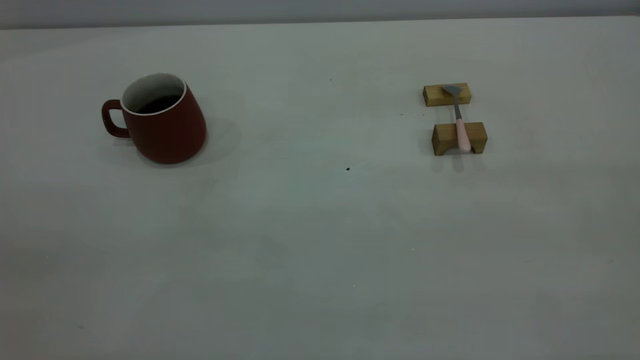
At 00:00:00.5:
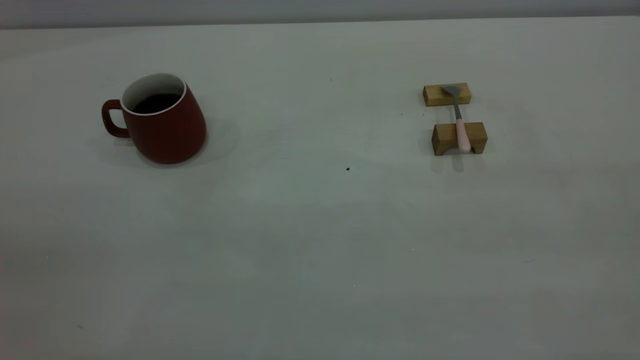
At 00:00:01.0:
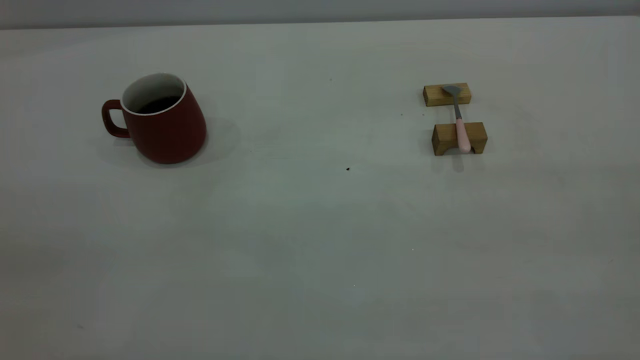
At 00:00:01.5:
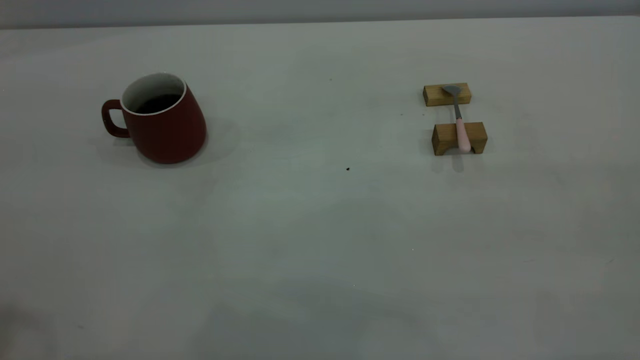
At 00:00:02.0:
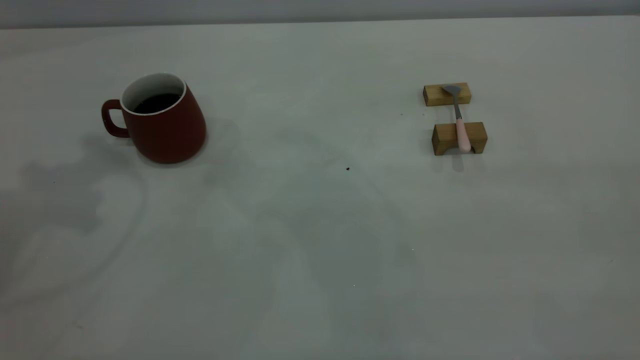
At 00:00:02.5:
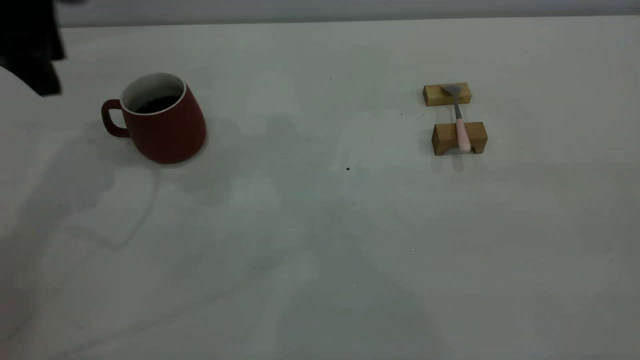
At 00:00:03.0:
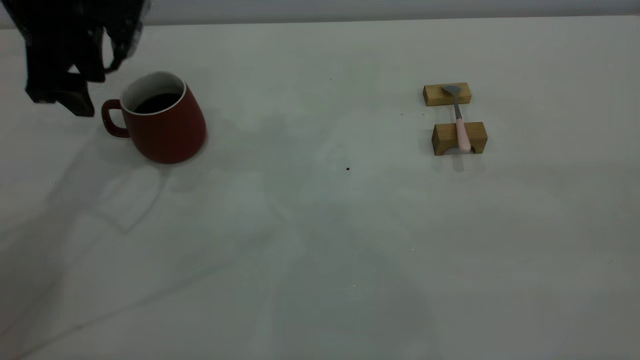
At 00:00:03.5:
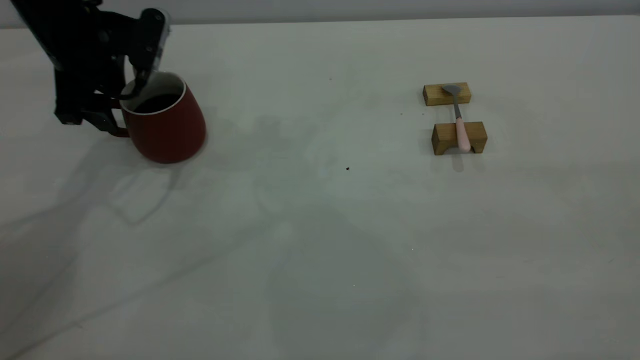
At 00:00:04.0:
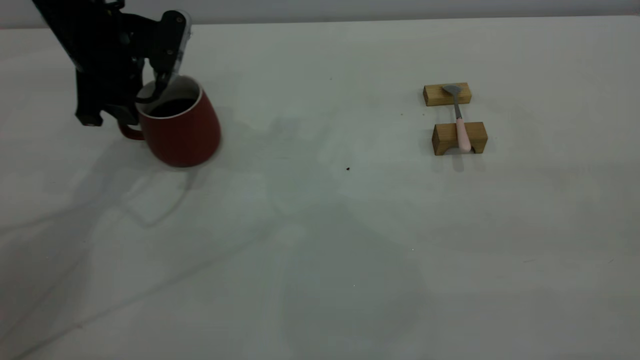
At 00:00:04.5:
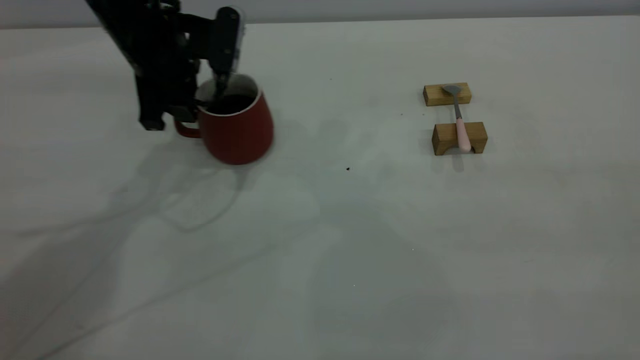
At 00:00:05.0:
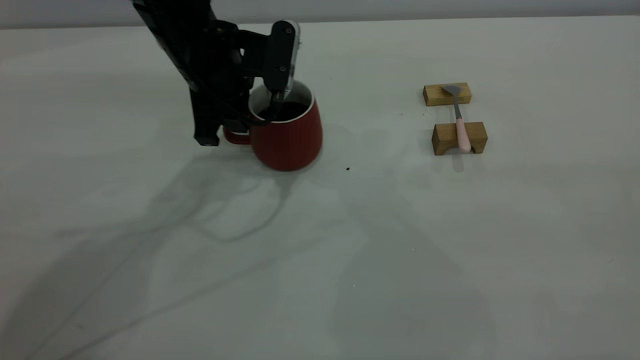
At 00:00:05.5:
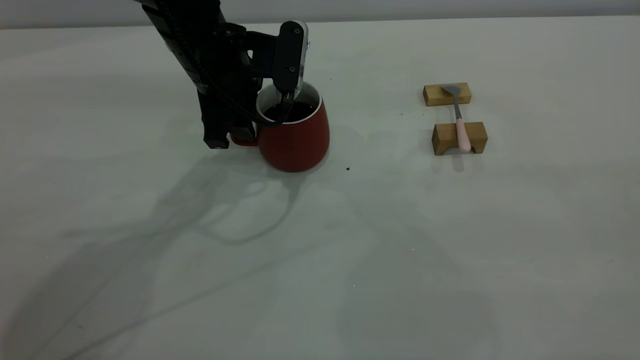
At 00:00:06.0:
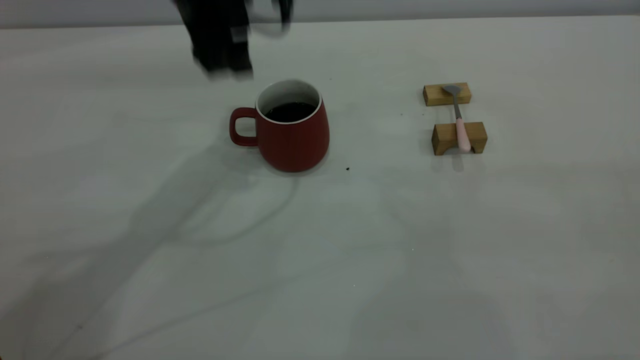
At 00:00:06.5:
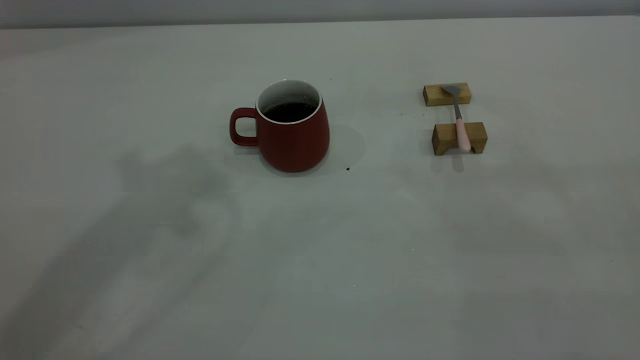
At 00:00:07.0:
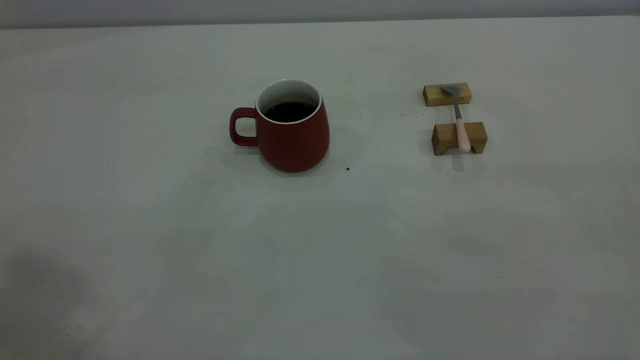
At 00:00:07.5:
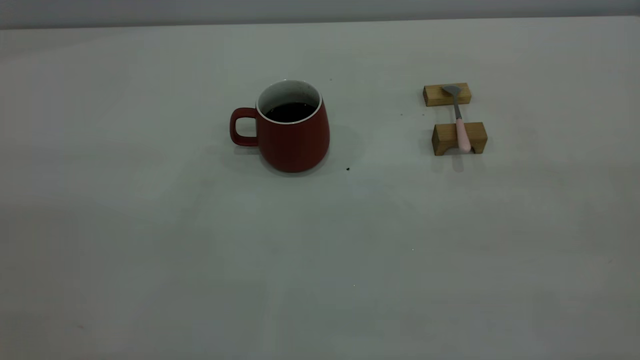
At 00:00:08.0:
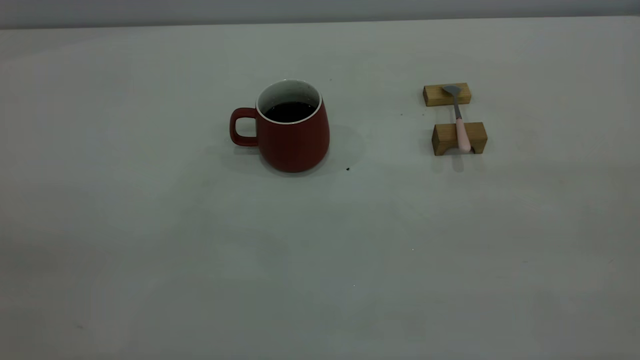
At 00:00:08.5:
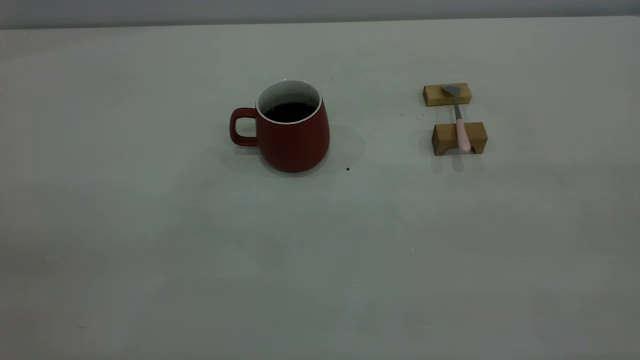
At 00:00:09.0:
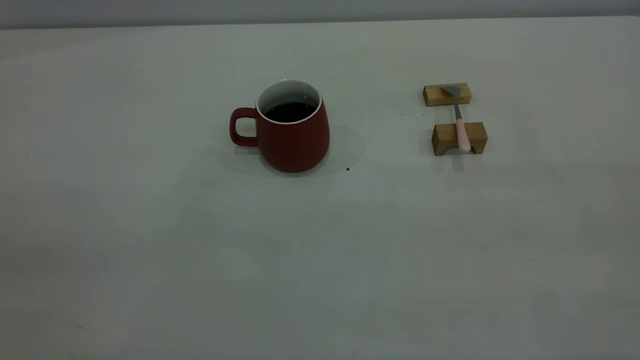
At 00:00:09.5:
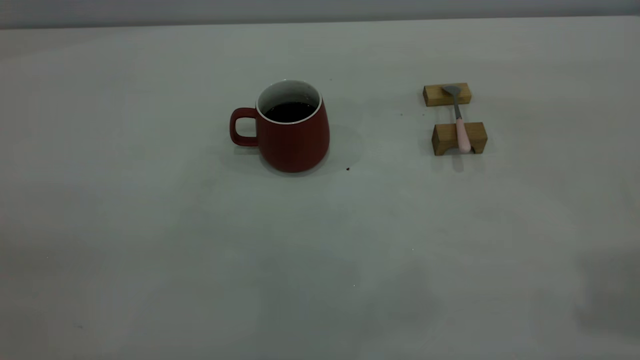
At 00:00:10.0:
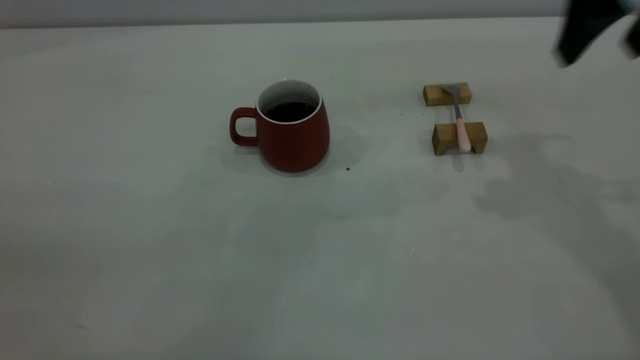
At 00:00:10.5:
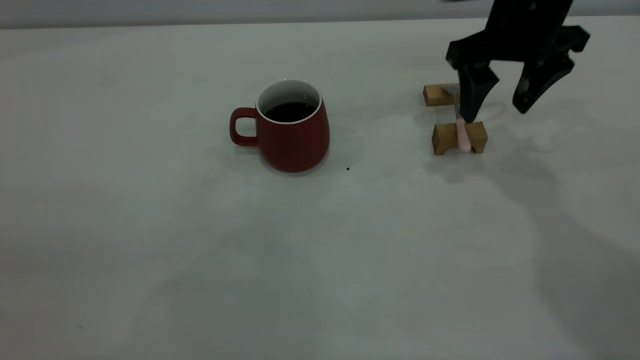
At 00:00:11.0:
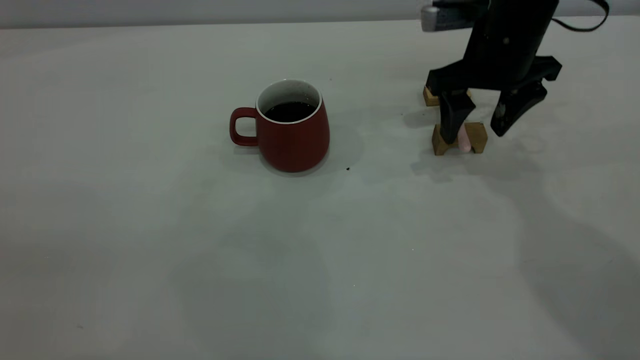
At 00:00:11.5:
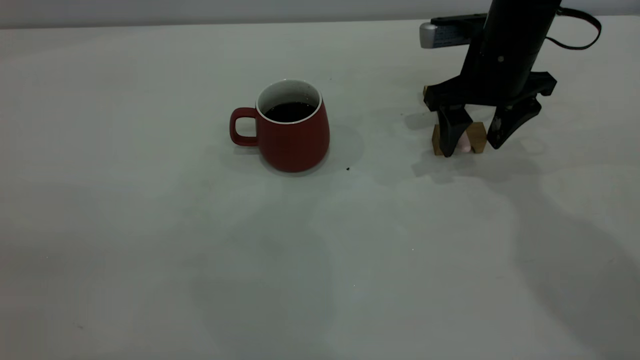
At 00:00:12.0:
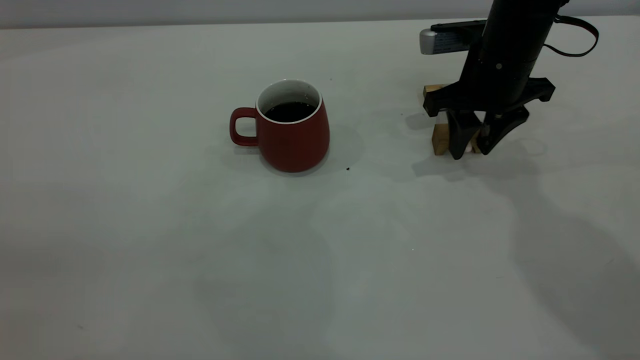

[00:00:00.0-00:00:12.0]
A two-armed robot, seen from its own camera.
Step, 00:00:00.0 to 00:00:06.0: Move the cup with coffee to the center of view.
00:00:02.0 to 00:00:04.0: The left gripper goes approximately 20 cm downward and forward, and closes up.
00:00:04.0 to 00:00:06.0: The left gripper heads to the right and upward, covering approximately 15 cm, and opens up.
00:00:06.0 to 00:00:08.0: The left gripper travels backward and to the left by about 50 cm, and closes up.
00:00:08.0 to 00:00:10.0: The right gripper heads forward, covering approximately 35 cm, and opens its fingers.
00:00:10.0 to 00:00:12.0: The right gripper shifts roughly 15 cm downward and forward, and closes up.

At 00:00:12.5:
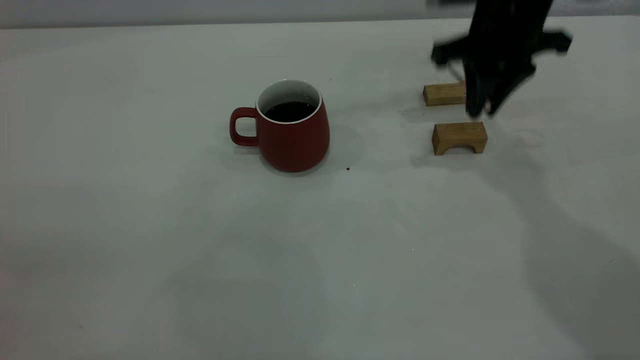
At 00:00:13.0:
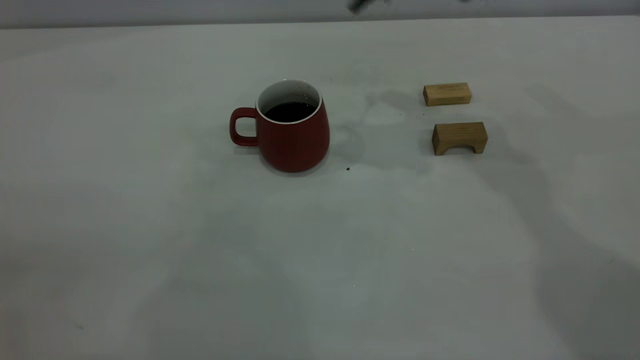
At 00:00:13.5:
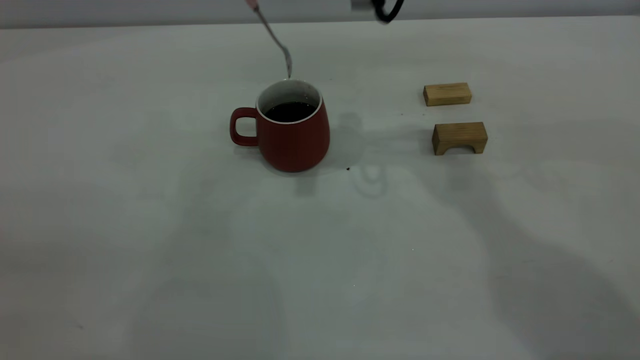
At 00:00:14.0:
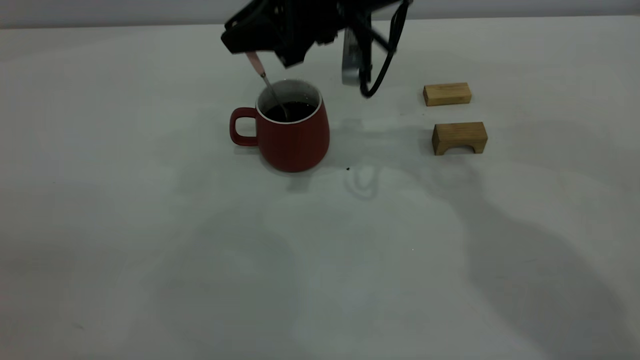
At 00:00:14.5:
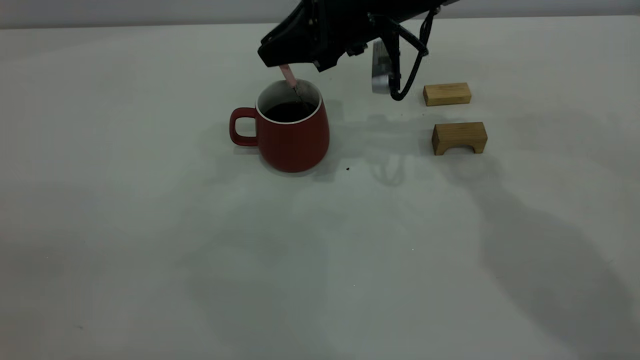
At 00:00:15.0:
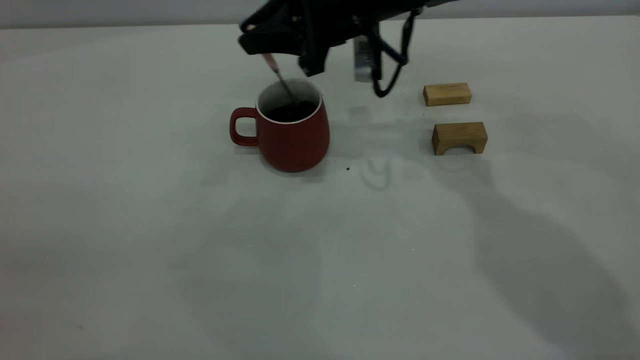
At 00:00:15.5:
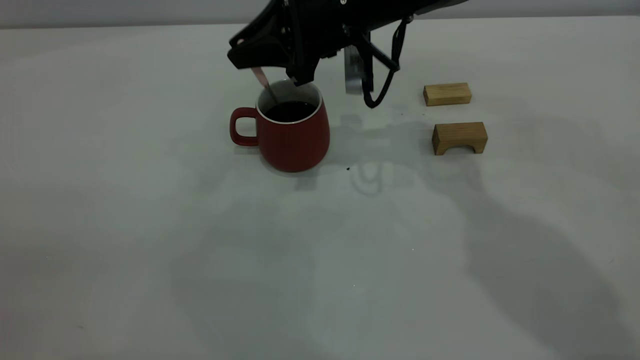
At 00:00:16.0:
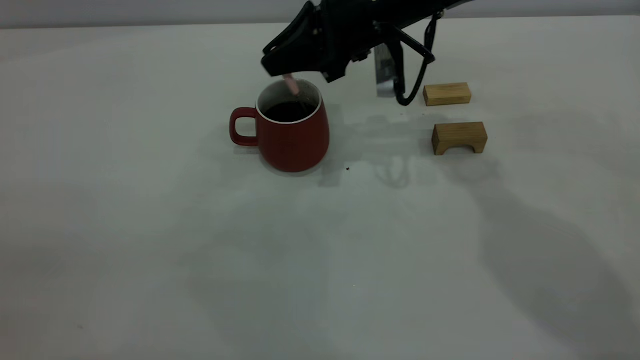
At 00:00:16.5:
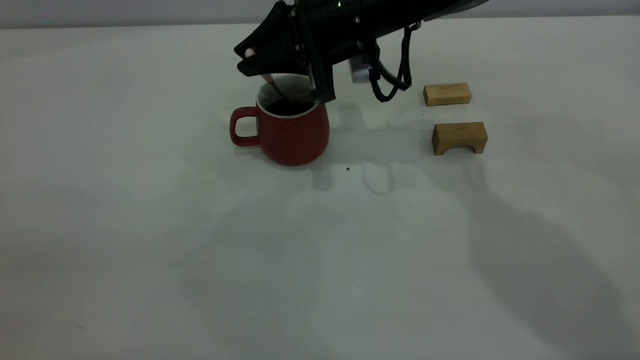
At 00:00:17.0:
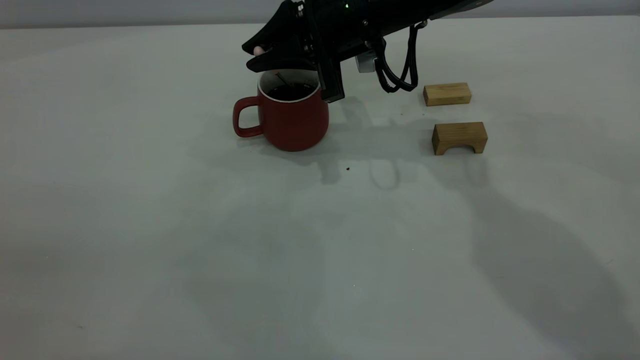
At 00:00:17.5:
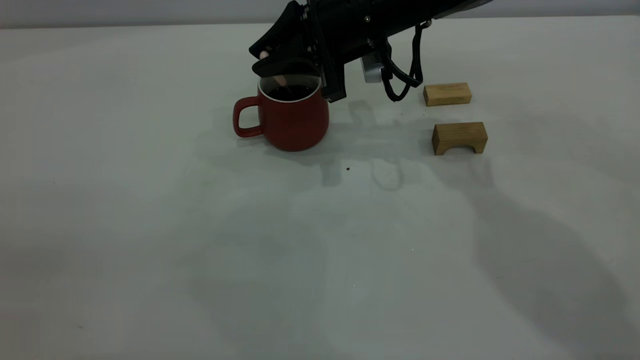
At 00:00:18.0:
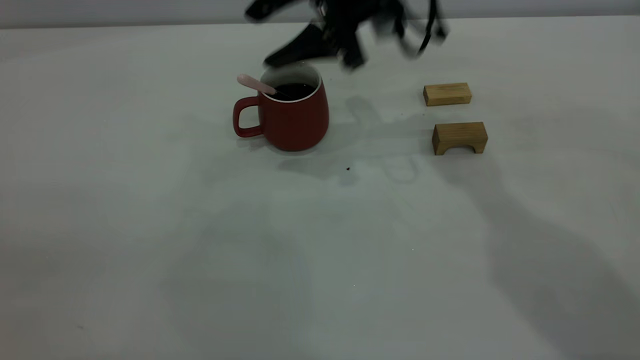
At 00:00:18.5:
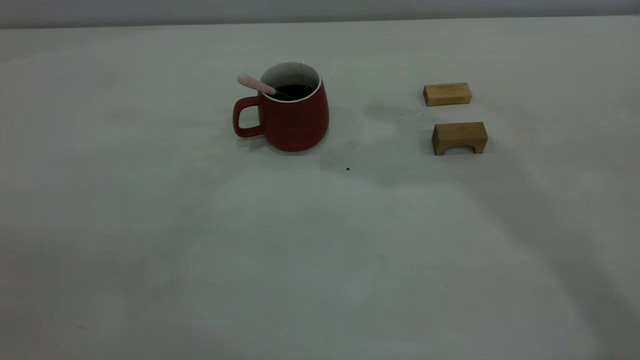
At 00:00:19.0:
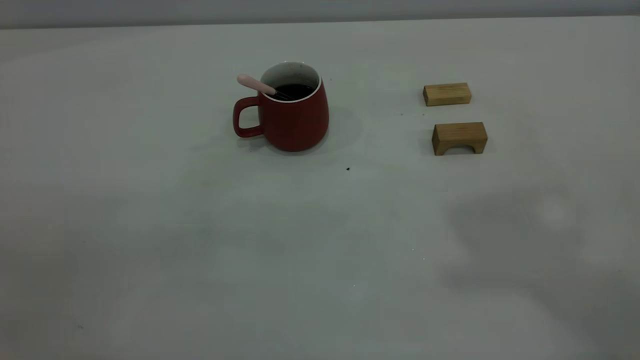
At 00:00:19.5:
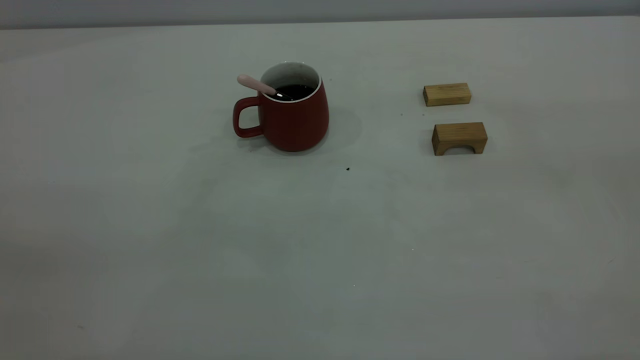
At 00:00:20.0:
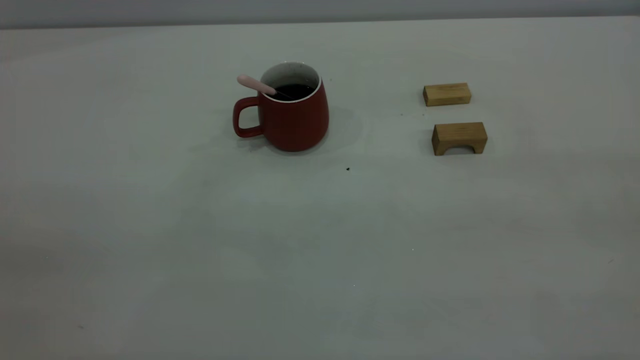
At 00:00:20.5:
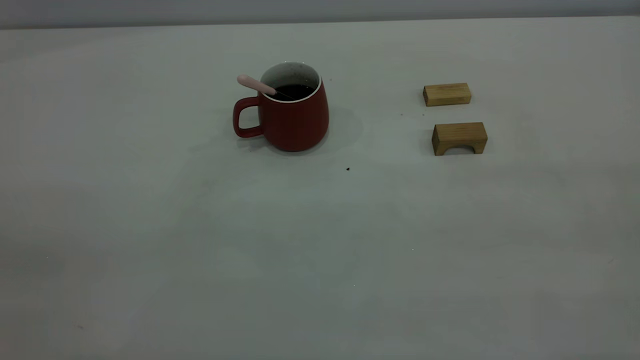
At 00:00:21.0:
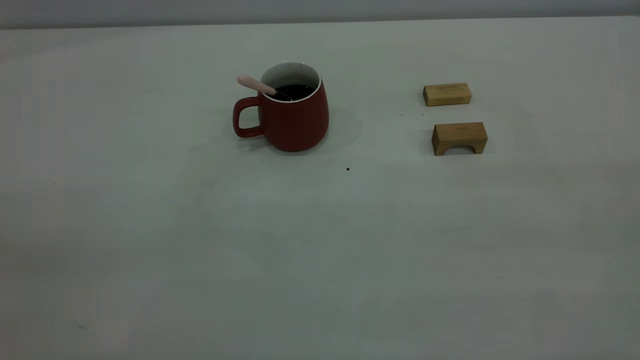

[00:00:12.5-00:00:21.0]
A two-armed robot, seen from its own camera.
Step, 00:00:12.5 to 00:00:18.0: Stir the coffee in the cup.
00:00:12.5 to 00:00:14.5: The right gripper goes approximately 10 cm to the left.
00:00:16.5 to 00:00:19.0: The right gripper shifts approximately 50 cm upward, backward and to the right, and opens, then closes once more.
